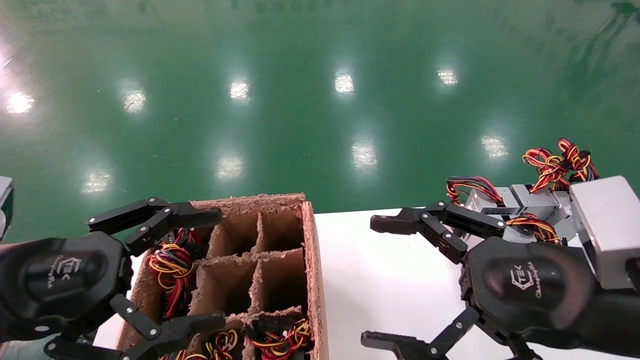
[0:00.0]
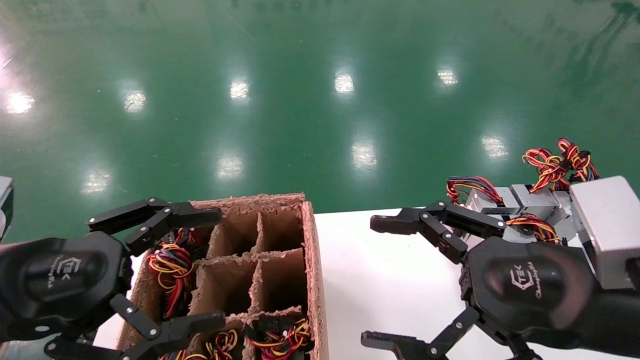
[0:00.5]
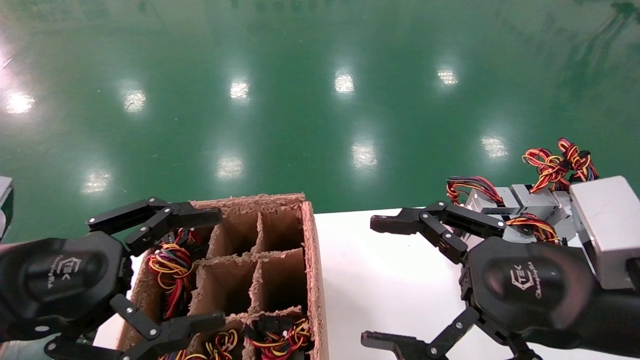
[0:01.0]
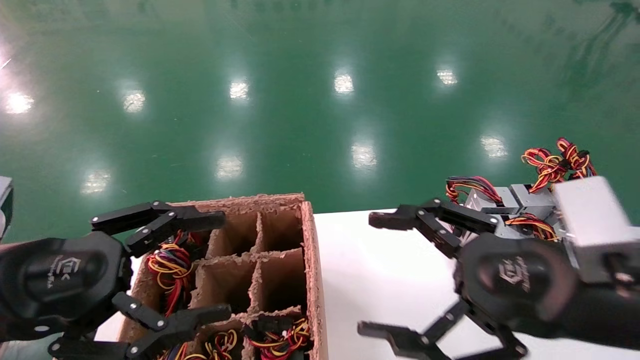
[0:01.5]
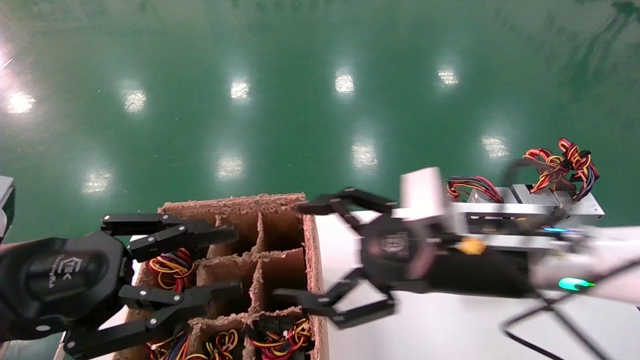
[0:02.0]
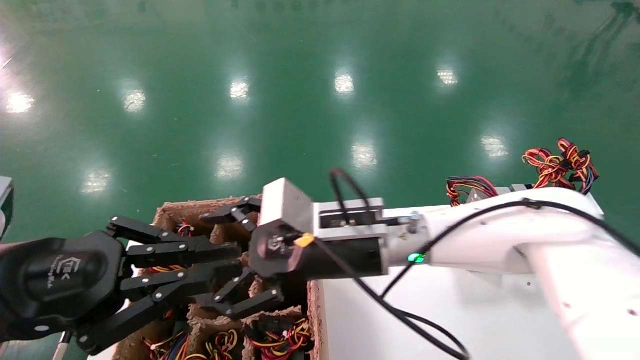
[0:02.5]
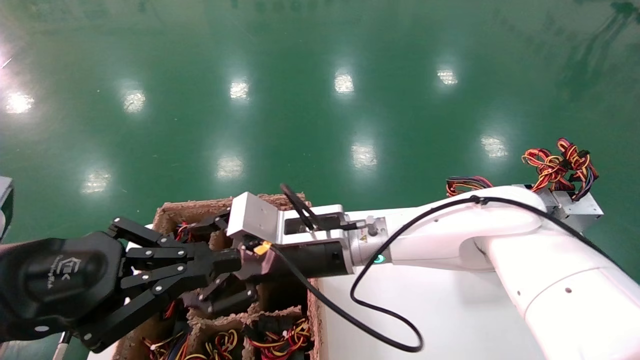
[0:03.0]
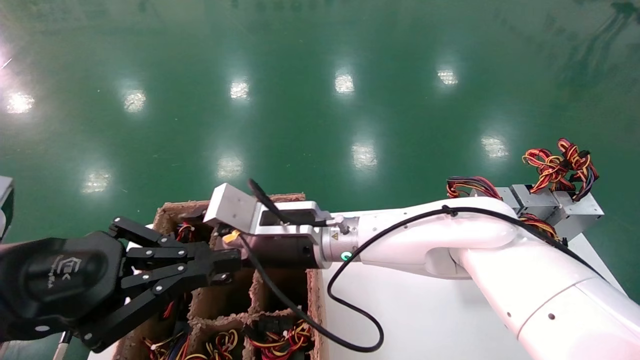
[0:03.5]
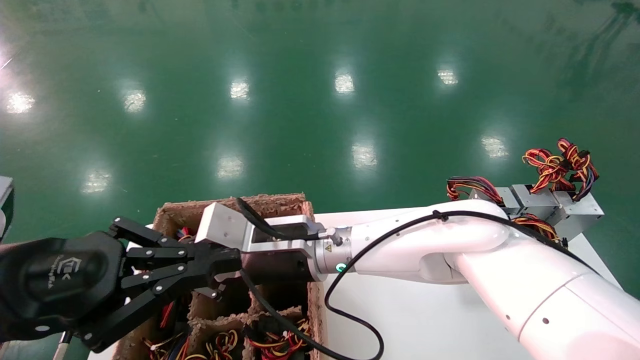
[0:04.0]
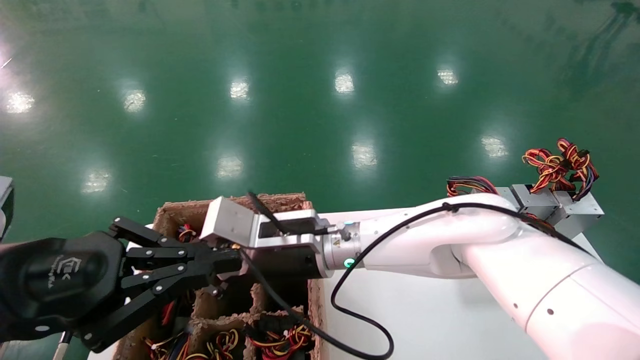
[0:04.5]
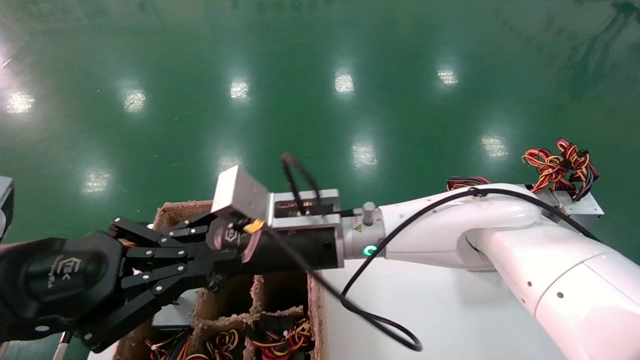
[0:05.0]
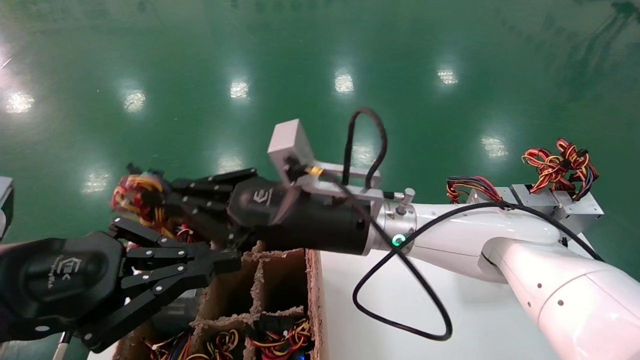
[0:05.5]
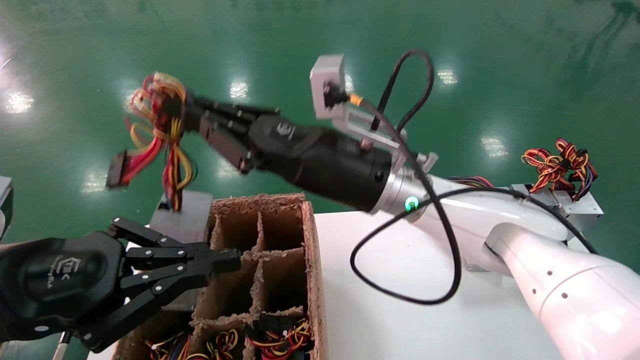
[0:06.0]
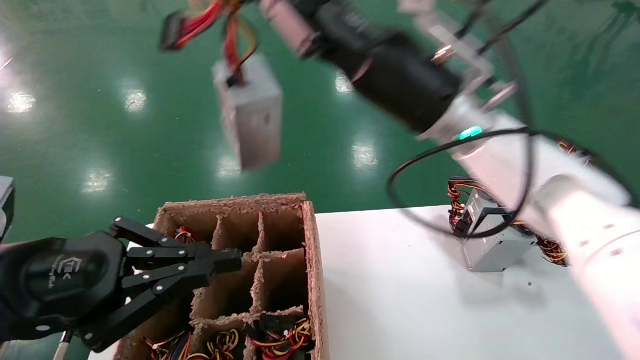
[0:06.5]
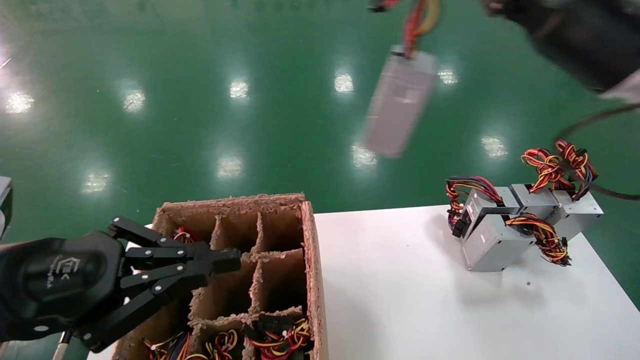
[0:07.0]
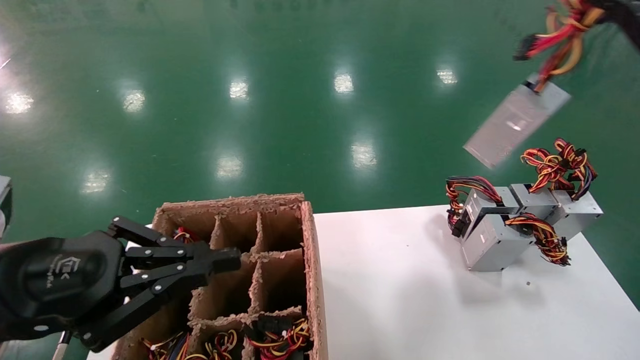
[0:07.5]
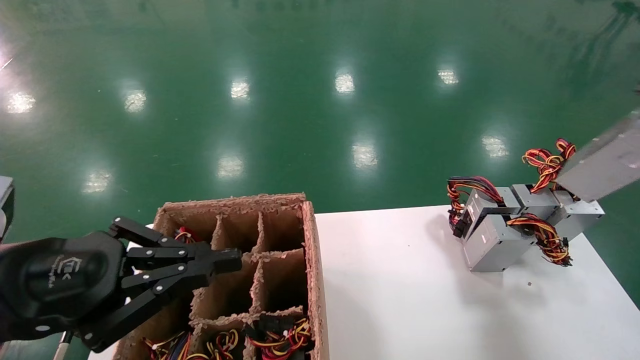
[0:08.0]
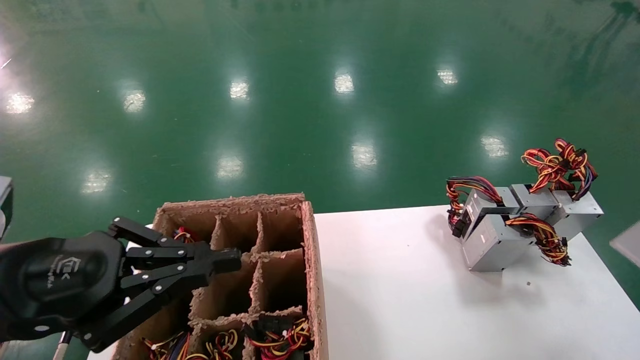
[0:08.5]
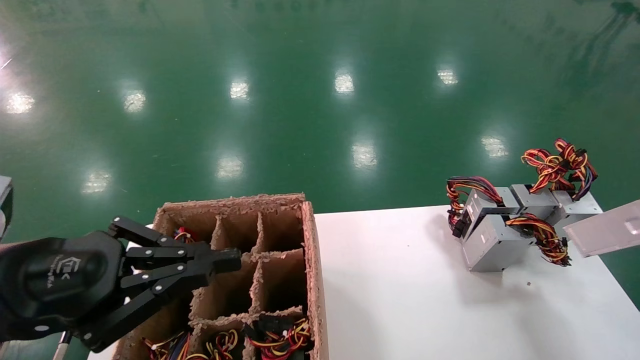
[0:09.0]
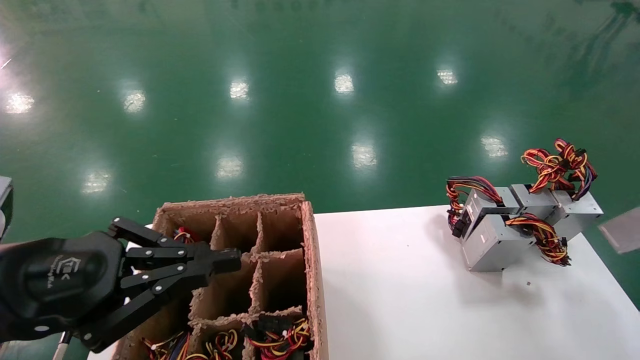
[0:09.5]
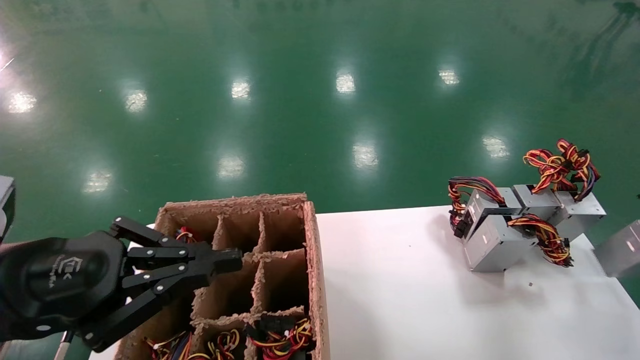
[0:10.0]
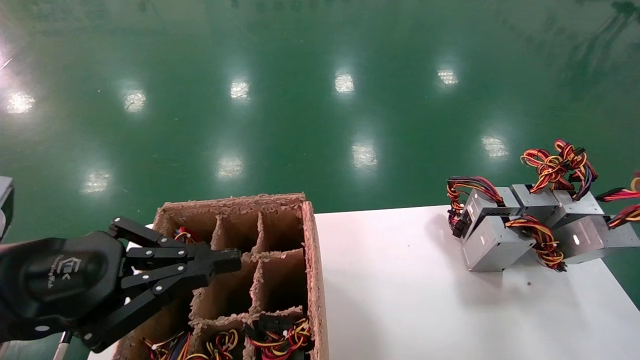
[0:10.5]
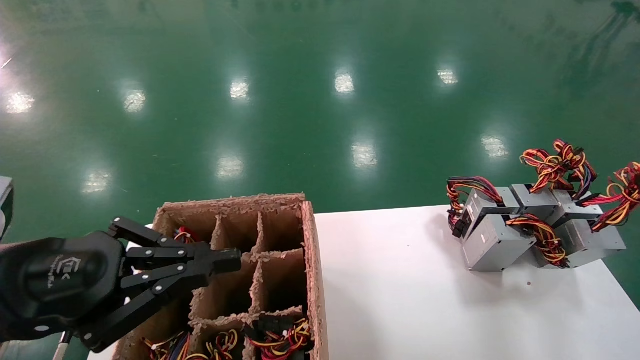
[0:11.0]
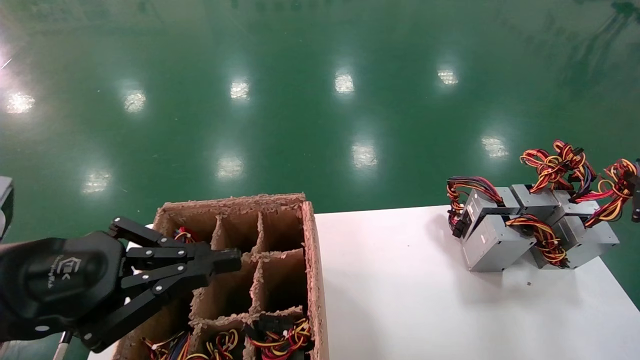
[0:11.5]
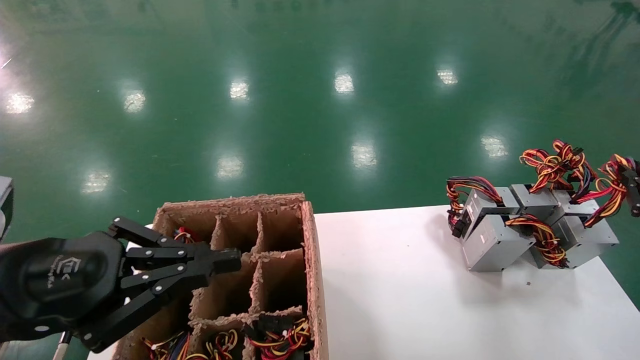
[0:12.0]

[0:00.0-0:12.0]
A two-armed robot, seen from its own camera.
Step, 0:02.0 to 0:04.0: Grab the main unit power supply from the containment box.
0:00.0 to 0:02.0: The right gripper travels forward and to the left by roughly 10 cm; the left gripper closes its fingers.
0:02.0 to 0:04.0: The right gripper goes some 20 cm to the left and forward, and closes up, while the left gripper closes.
0:04.0 to 0:06.0: The right gripper shifts some 15 cm upward and to the right.
0:06.0 to 0:08.0: The right gripper goes about 50 cm to the right.
0:08.0 to 0:10.0: The right gripper is displaced downward by about 15 cm.
0:10.0 to 0:12.0: The right gripper heads forward, covering approximately 10 cm.

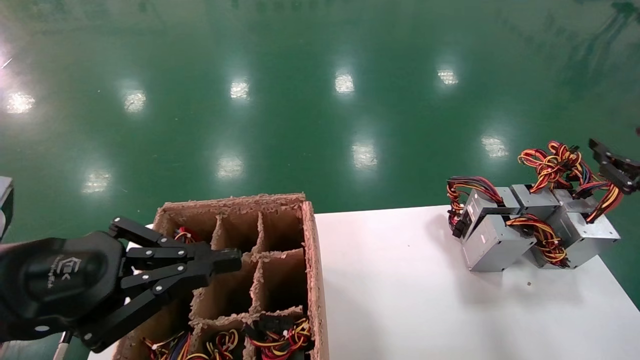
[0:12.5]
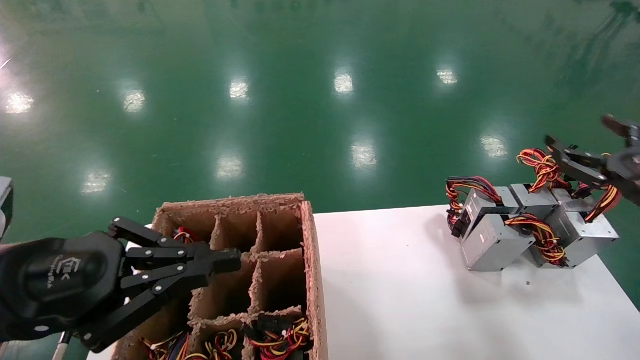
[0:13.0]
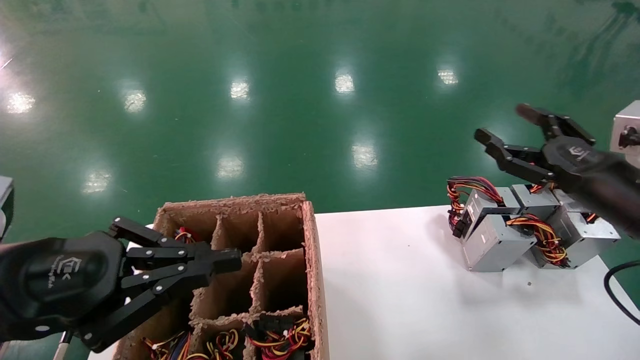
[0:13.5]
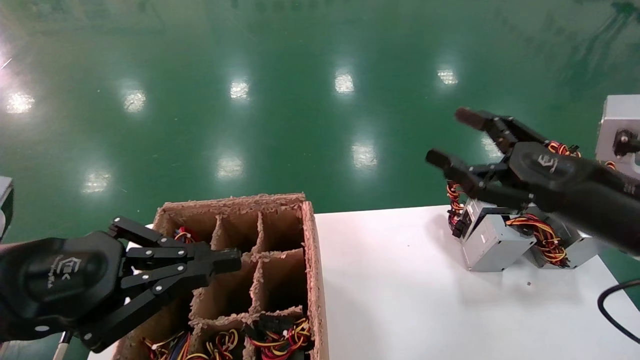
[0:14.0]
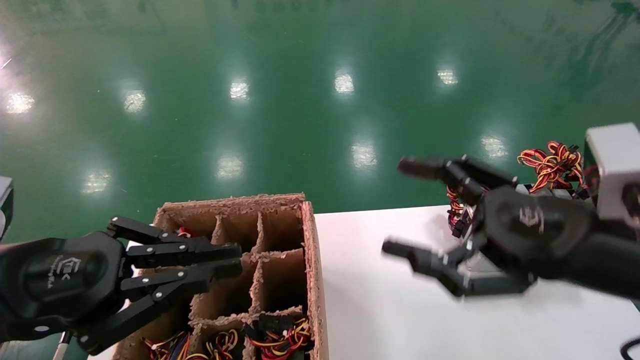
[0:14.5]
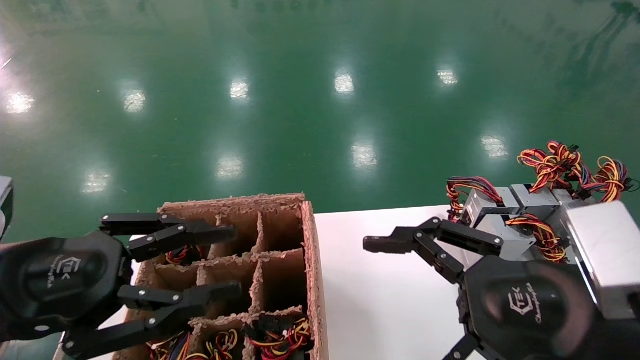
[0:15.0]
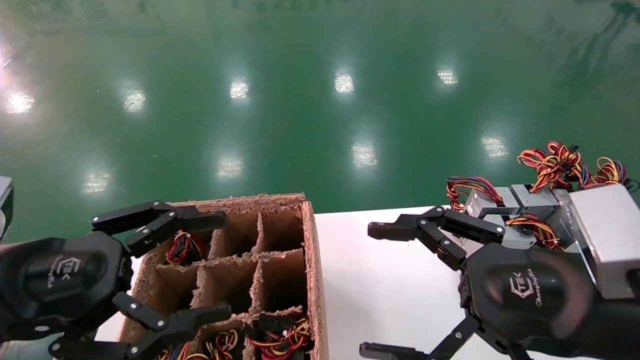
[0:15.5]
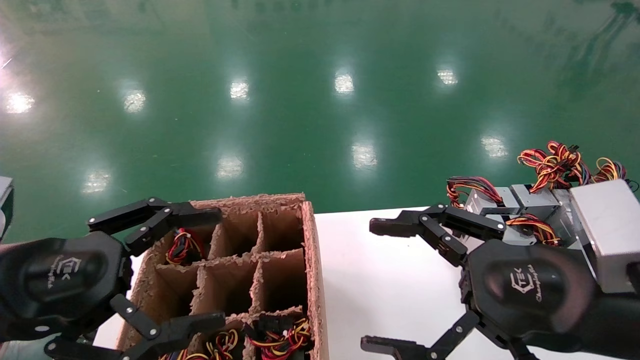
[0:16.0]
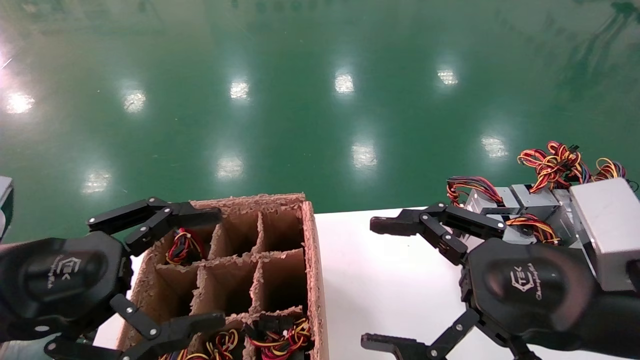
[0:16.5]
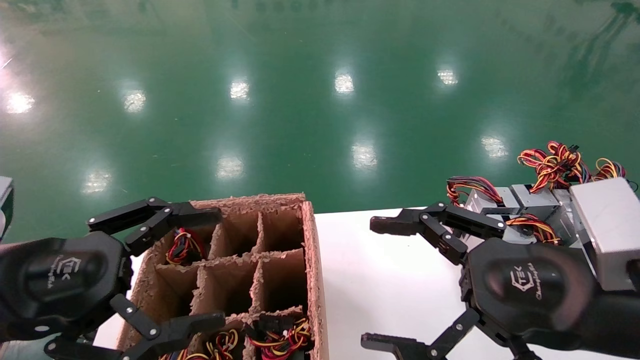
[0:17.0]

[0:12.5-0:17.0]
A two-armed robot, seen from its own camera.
0:12.5 to 0:14.5: The right gripper travels to the left and backward by approximately 25 cm, and opens up.
0:14.5 to 0:17.0: The left gripper opens.
